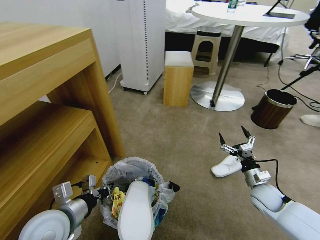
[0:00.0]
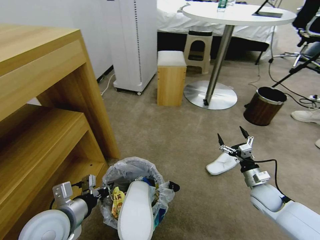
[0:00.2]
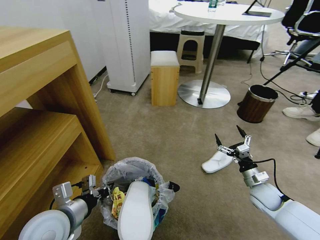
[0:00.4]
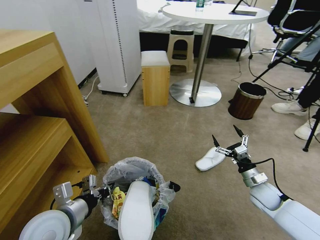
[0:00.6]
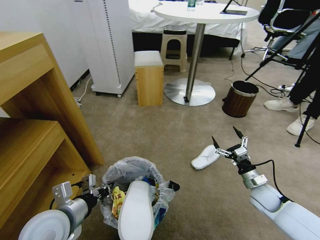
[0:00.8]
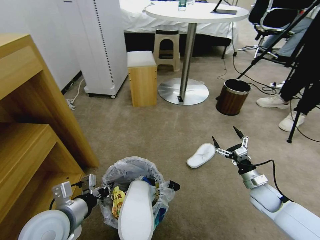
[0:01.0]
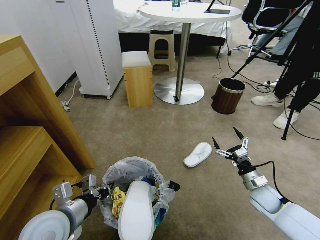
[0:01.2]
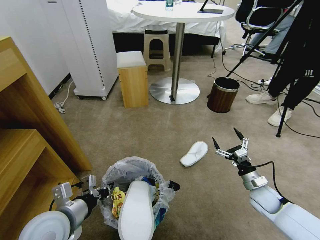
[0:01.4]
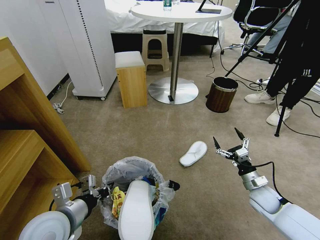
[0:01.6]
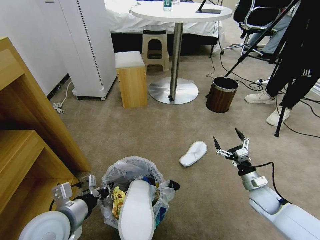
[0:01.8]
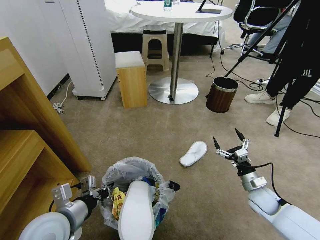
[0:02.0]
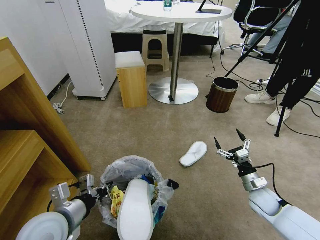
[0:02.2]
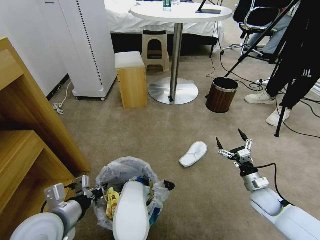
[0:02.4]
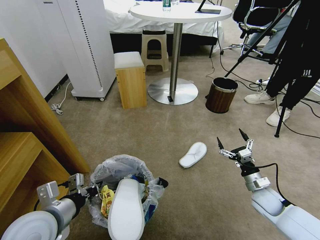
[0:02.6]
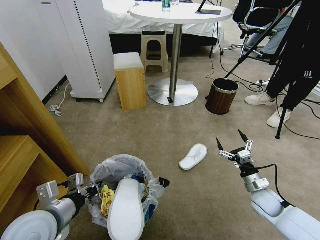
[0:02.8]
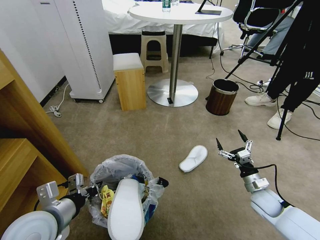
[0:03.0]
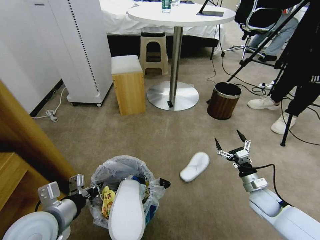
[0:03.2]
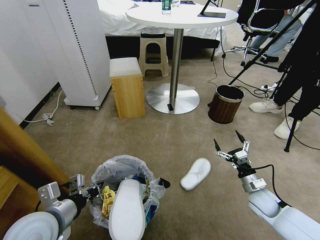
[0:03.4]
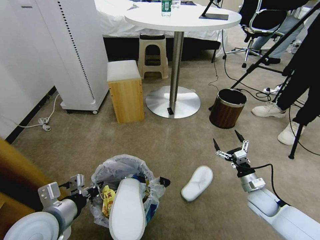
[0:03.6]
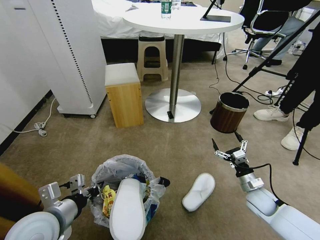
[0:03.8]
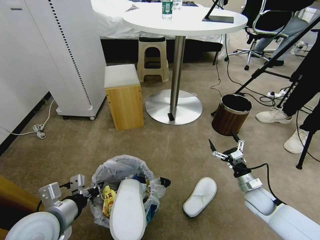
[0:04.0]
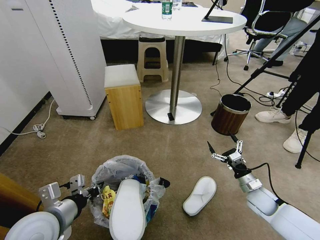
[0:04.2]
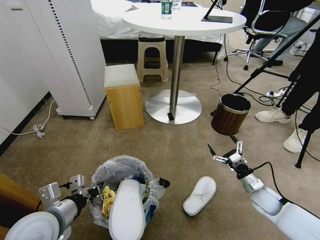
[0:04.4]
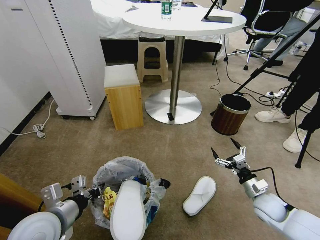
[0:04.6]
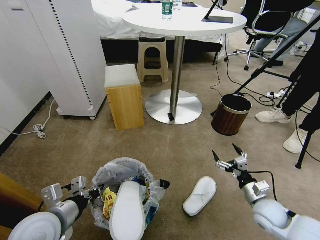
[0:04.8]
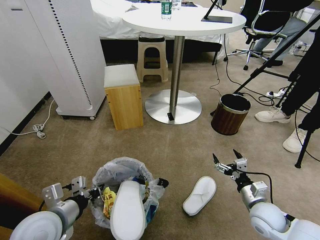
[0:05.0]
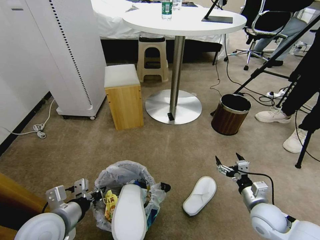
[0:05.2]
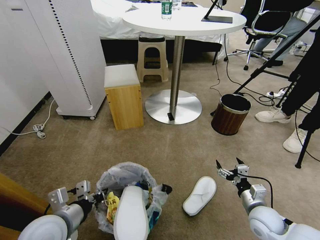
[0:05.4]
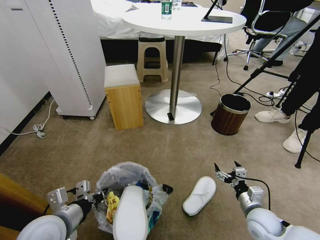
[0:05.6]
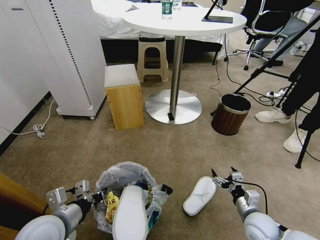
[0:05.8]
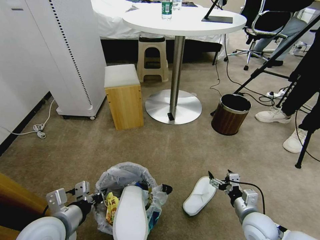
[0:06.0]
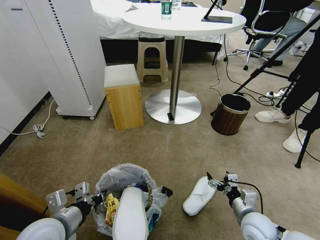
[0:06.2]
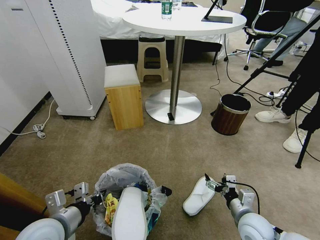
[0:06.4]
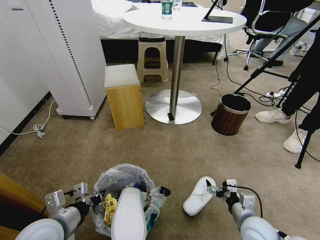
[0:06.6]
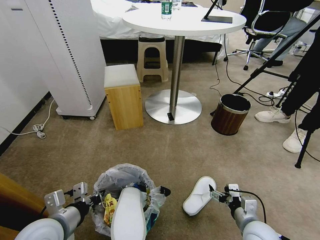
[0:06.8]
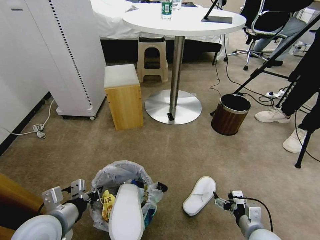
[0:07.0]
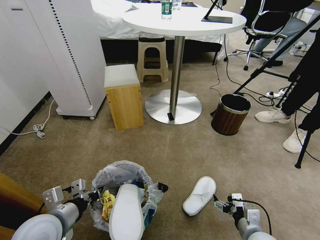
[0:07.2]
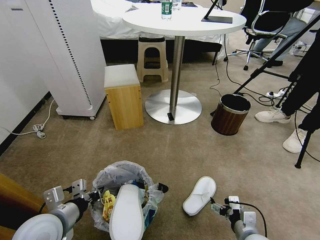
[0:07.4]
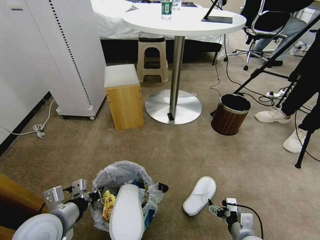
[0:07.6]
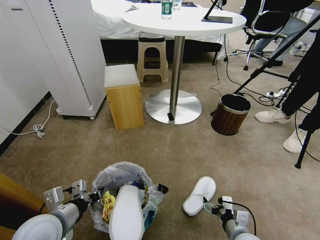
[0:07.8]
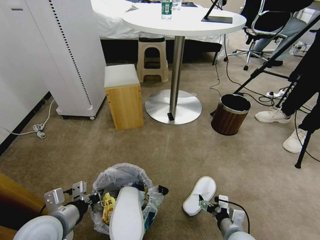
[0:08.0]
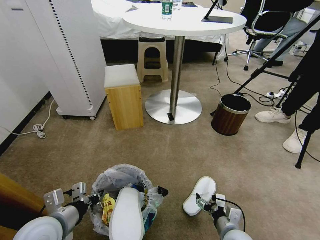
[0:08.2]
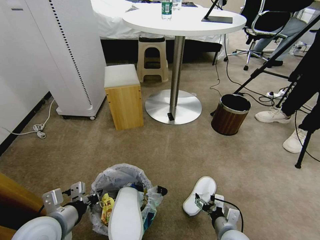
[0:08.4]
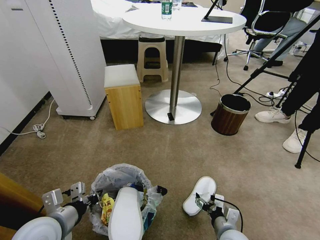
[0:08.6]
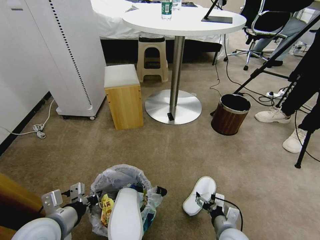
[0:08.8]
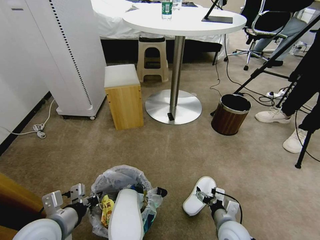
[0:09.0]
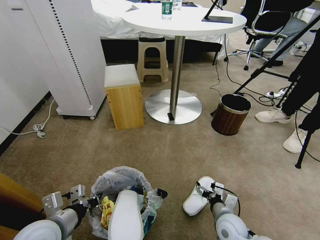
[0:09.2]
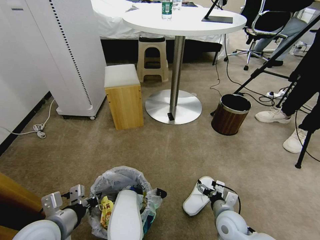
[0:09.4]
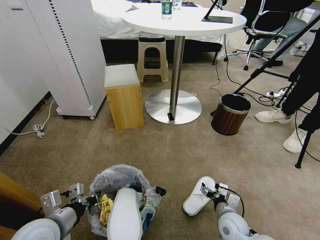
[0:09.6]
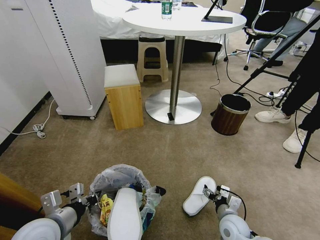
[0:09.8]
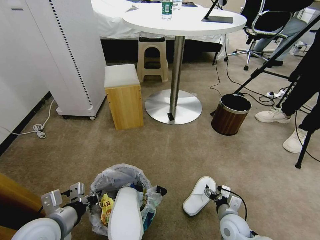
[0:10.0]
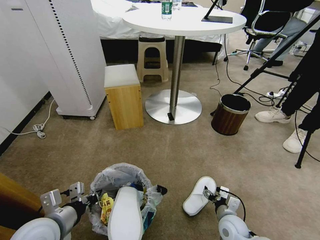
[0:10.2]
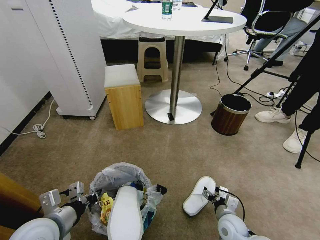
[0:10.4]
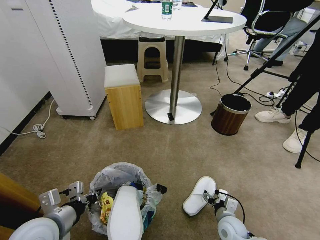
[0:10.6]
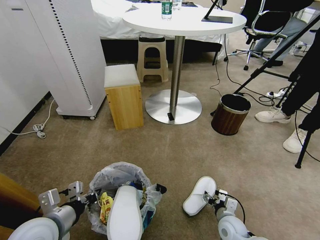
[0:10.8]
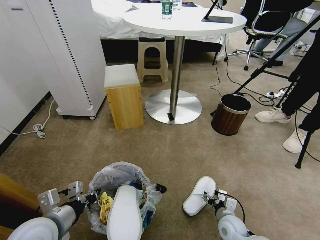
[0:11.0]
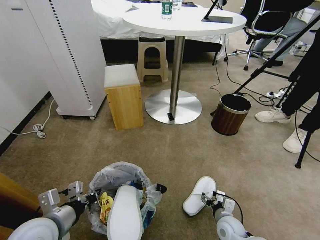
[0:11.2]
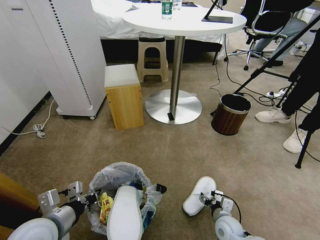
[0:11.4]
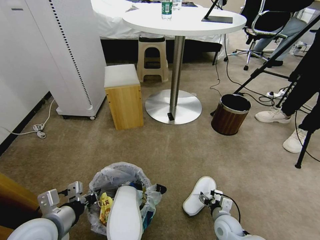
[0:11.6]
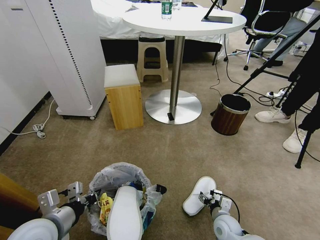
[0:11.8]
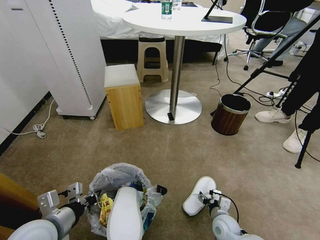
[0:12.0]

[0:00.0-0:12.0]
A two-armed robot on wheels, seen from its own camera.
Task of the whole recording: Pick up the trash bin and place the garbage on the floor into it.
0:04.4 to 0:06.0: The right gripper travels backward and to the left by approximately 10 cm.
0:06.0 to 0:07.6: The right gripper goes some 5 cm backward.
0:07.6 to 0:09.0: The right gripper shifts by about 5 cm.
0:09.0 to 0:10.4: The right gripper ends up approximately 5 cm from where it was.
0:10.4 to 0:12.0: The grippers move only a little.

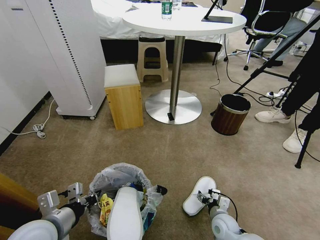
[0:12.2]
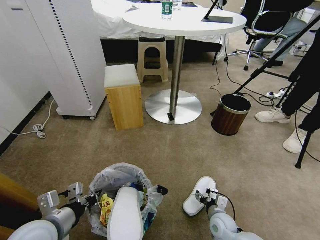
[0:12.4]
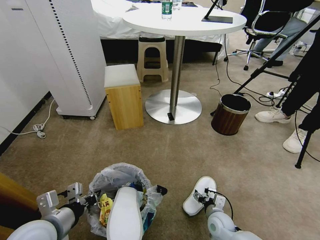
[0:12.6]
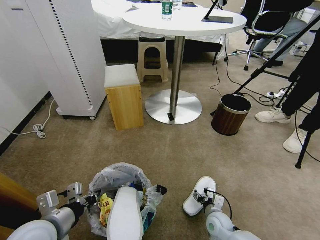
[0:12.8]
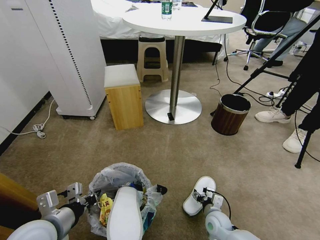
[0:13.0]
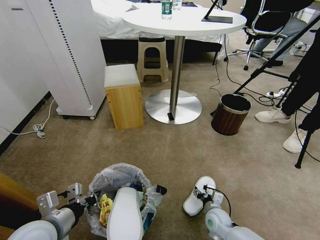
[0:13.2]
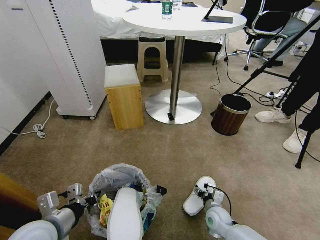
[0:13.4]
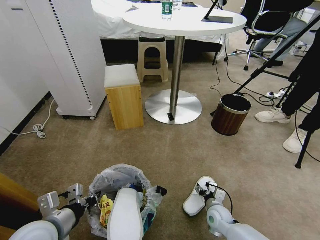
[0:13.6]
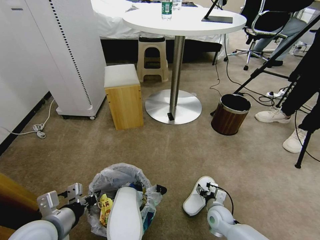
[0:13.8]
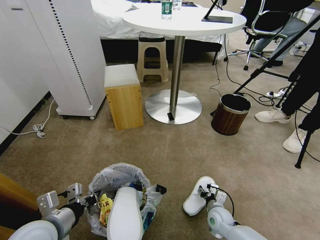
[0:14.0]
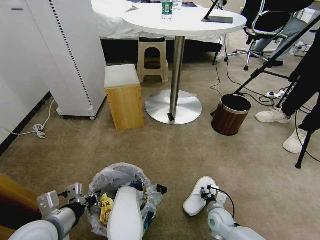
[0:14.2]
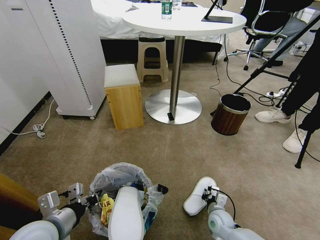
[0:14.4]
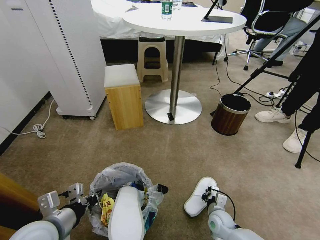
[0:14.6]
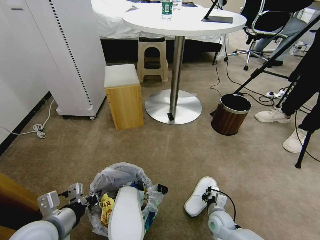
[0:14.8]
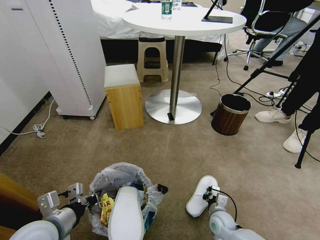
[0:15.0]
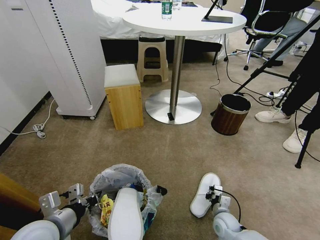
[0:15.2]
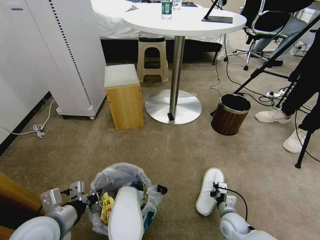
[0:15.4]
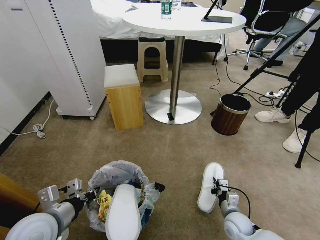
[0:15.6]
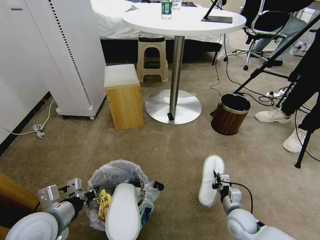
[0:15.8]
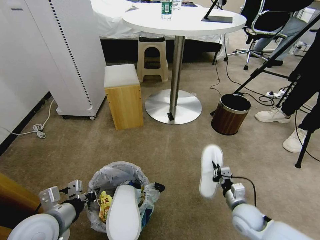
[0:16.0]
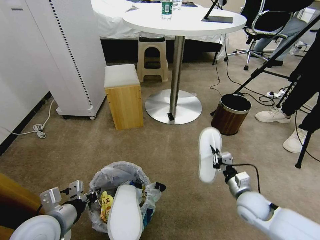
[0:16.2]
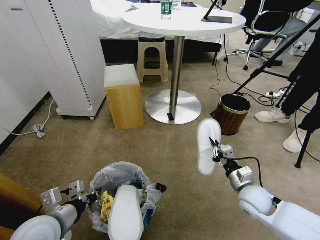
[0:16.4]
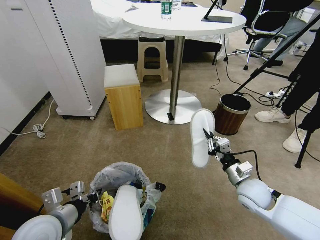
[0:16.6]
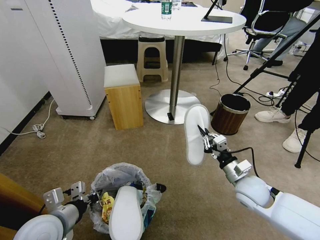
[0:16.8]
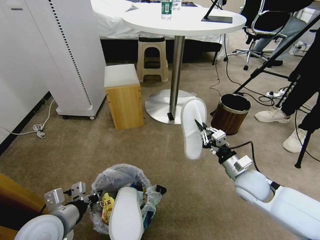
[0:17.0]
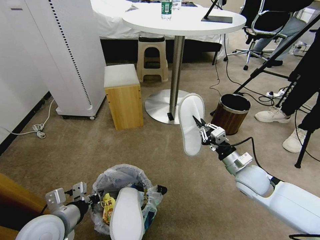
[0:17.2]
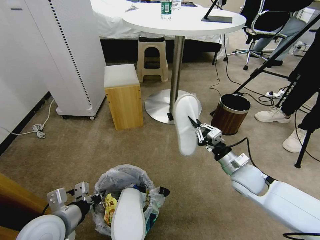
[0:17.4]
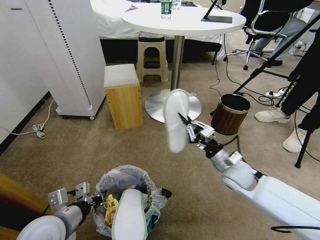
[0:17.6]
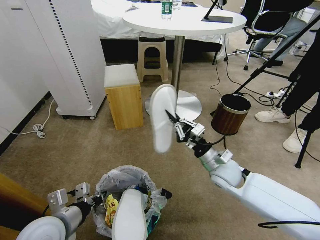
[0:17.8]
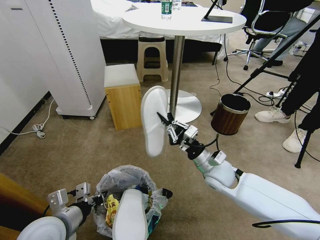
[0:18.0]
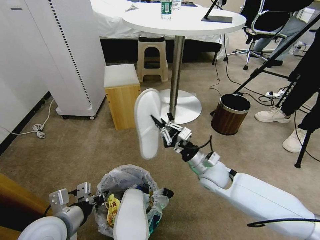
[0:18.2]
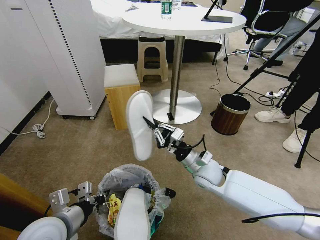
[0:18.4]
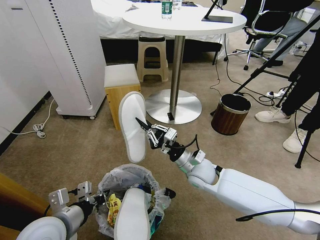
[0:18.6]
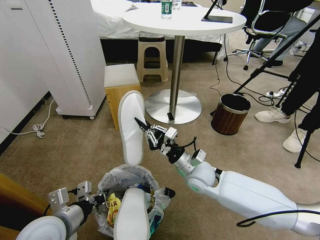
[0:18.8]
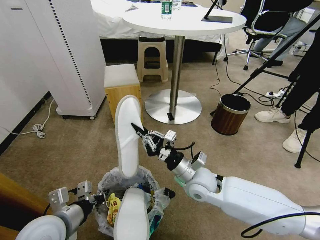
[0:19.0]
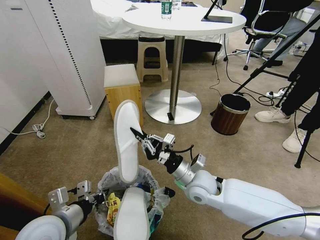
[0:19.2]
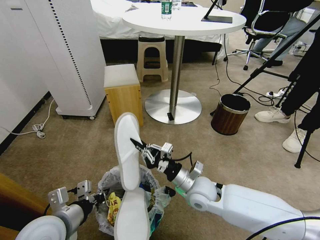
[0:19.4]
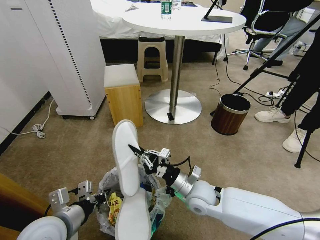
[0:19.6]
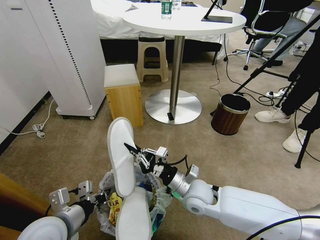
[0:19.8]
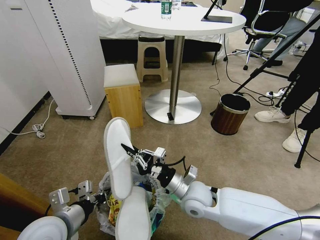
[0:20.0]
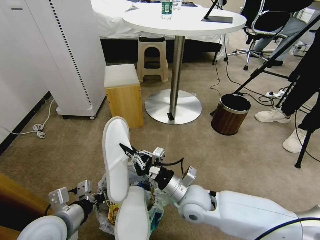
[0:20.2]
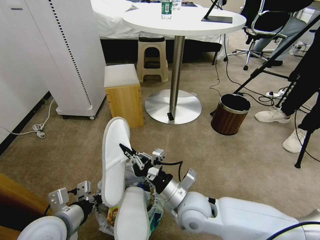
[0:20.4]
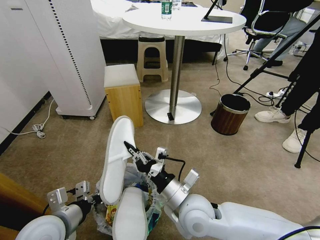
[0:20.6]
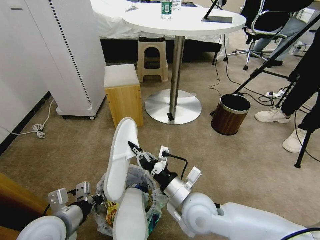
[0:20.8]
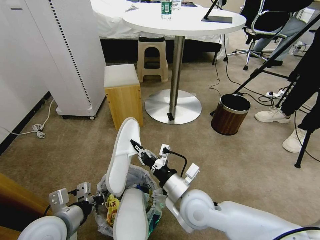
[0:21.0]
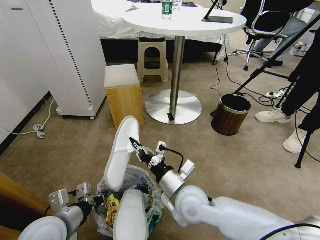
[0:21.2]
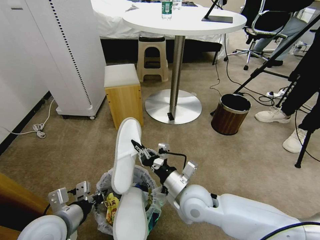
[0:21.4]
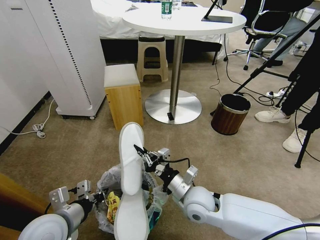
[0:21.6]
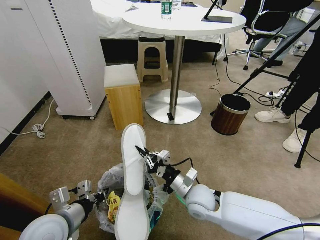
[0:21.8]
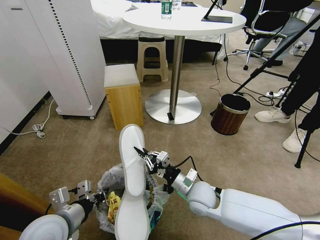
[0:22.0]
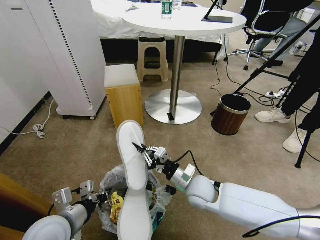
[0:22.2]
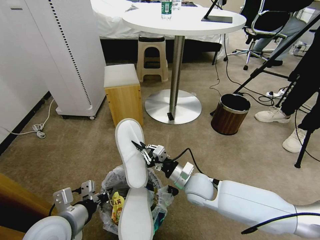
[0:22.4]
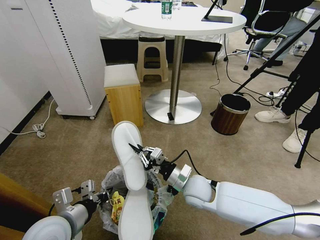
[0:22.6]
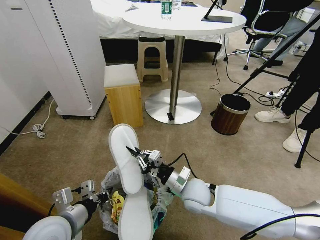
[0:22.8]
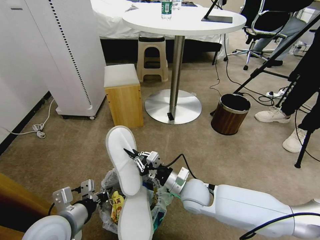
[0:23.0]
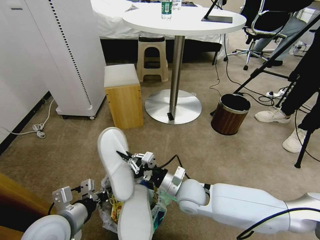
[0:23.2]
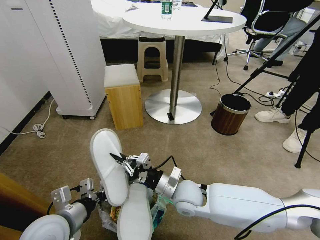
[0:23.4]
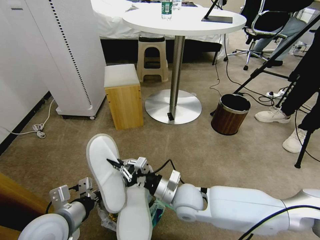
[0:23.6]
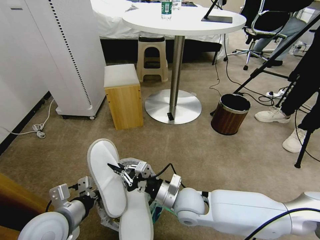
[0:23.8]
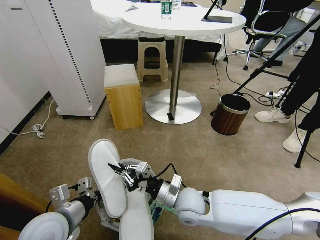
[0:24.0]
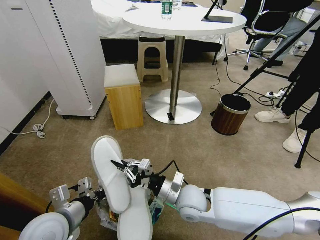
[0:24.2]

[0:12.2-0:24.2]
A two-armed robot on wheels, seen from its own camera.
Task of the whole recording: Pick up the trash bin and place the garbage on the floor into it.
0:12.2 to 0:13.8: The grippers stay close to where they were, moving slightly.
0:13.8 to 0:15.2: The right gripper closes its fingers.
0:15.2 to 0:16.6: The right gripper travels upward by about 20 cm.
0:16.6 to 0:18.2: The right gripper shifts roughly 15 cm to the left and forward.
0:18.2 to 0:19.8: The right gripper is displaced backward and to the left by approximately 10 cm.
0:19.8 to 0:21.2: The right gripper changes place by about 5 cm.
0:21.2 to 0:22.6: The right gripper goes some 10 cm downward and forward.
0:22.6 to 0:24.2: The right gripper ends up roughly 5 cm from where it was.
